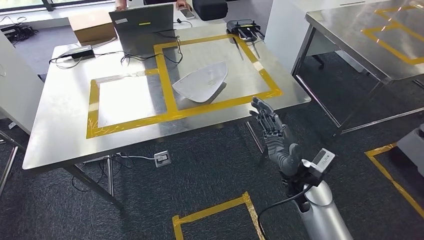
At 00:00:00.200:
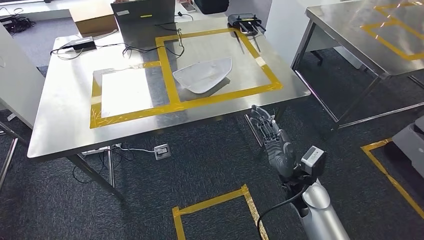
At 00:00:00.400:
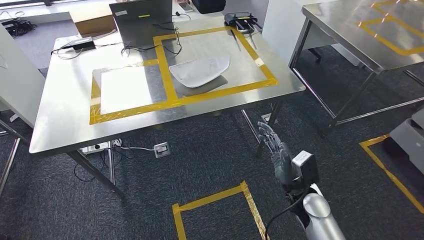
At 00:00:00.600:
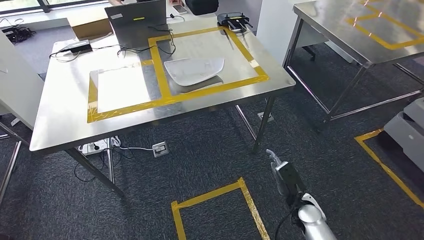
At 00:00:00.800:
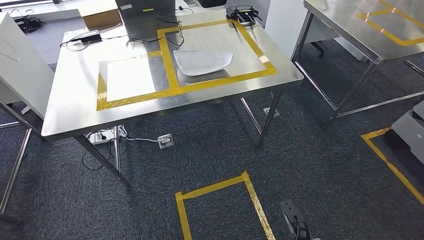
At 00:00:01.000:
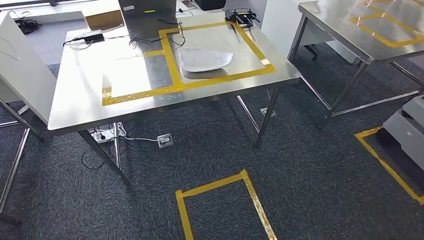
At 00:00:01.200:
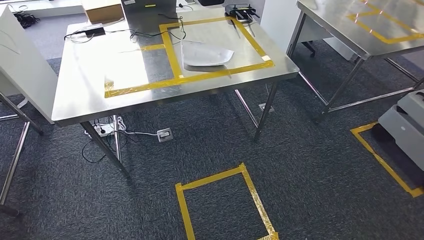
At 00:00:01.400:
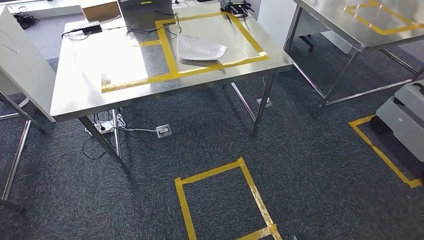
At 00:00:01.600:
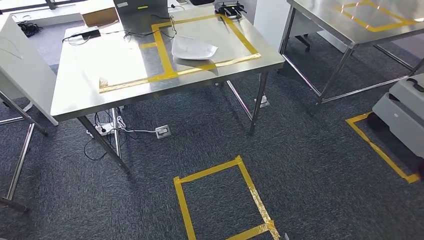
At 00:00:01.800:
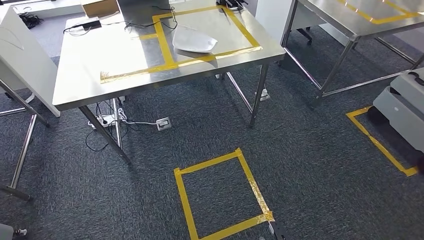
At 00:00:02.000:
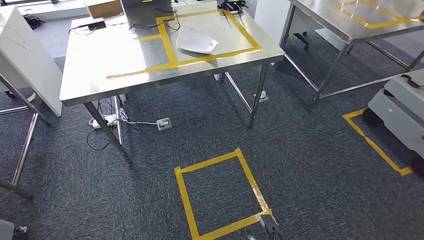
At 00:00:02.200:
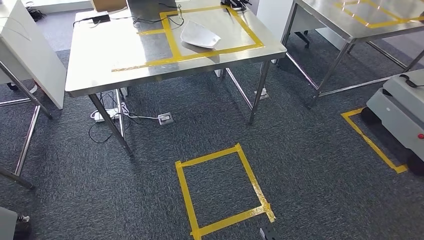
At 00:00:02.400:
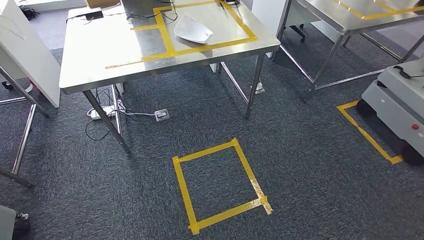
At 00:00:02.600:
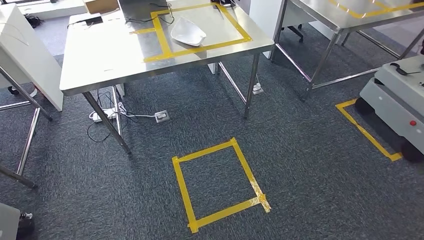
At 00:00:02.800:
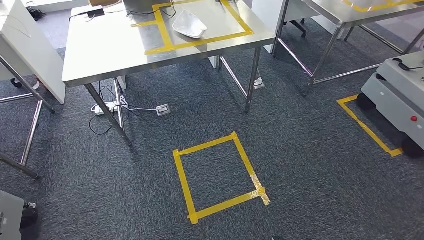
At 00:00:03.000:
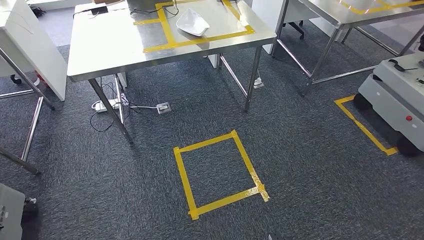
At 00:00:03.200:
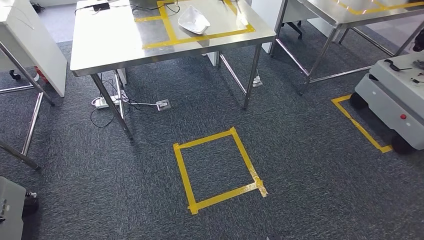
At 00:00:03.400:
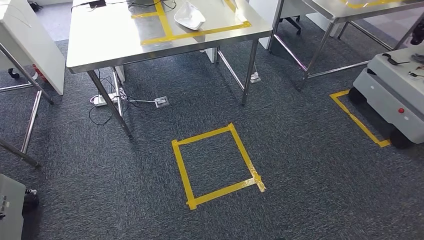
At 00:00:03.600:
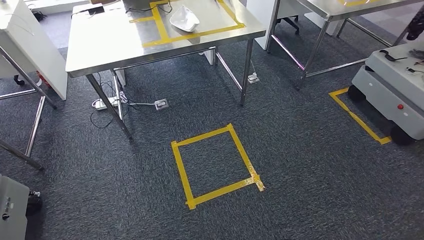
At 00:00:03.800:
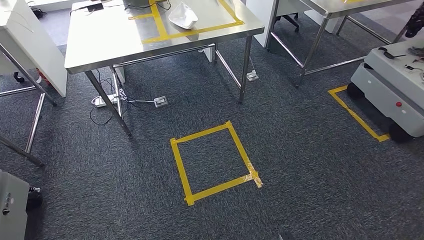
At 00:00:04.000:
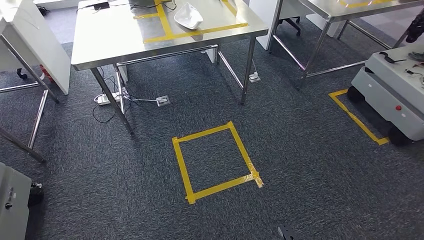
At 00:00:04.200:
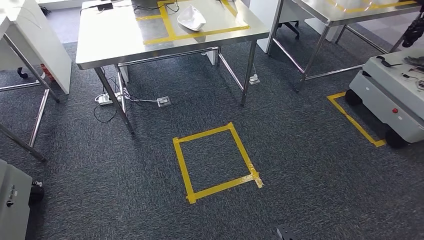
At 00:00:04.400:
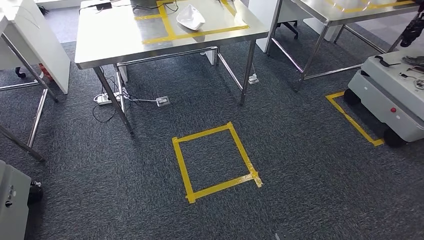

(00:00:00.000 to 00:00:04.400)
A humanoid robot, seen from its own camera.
Step, 00:00:00.000 - 00:00:04.400: Move to the initial position of the workbench.
